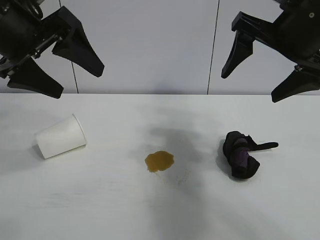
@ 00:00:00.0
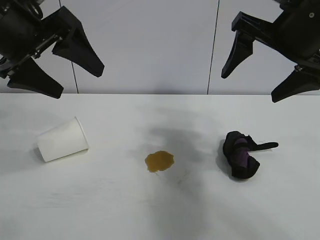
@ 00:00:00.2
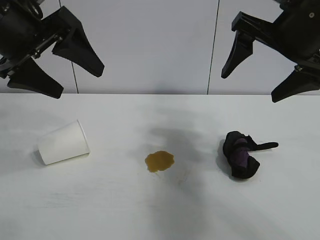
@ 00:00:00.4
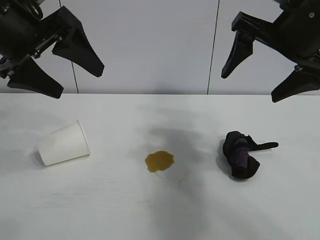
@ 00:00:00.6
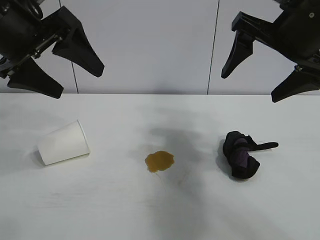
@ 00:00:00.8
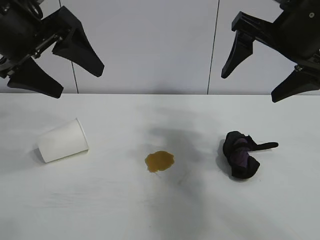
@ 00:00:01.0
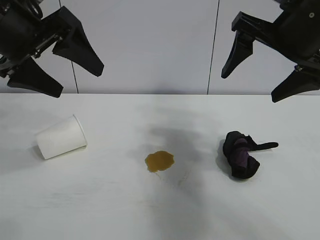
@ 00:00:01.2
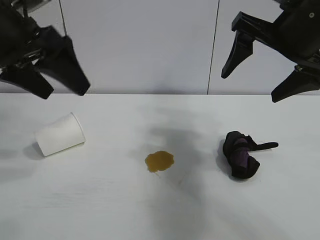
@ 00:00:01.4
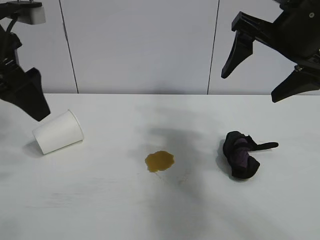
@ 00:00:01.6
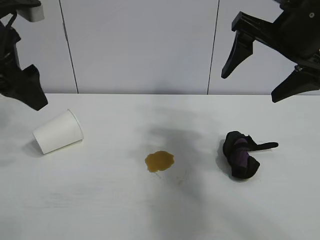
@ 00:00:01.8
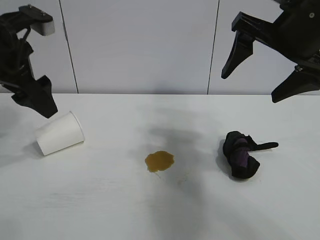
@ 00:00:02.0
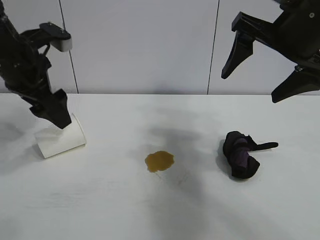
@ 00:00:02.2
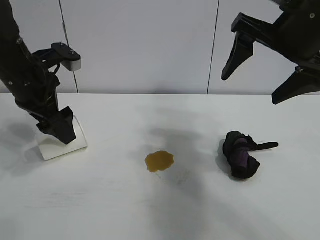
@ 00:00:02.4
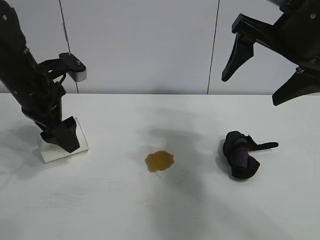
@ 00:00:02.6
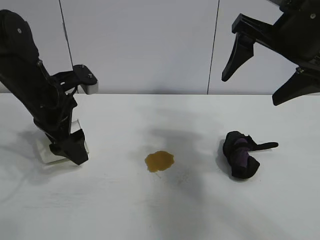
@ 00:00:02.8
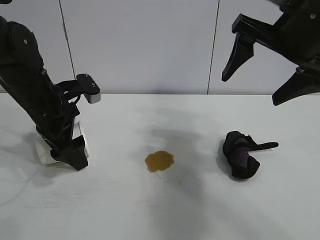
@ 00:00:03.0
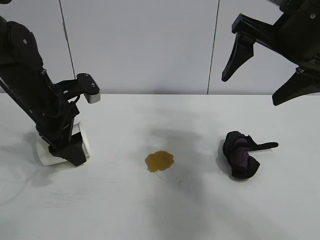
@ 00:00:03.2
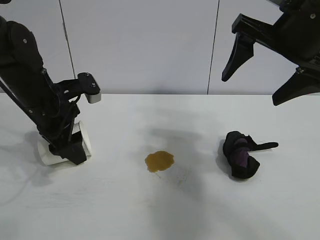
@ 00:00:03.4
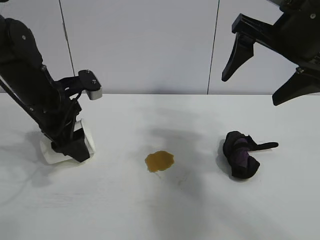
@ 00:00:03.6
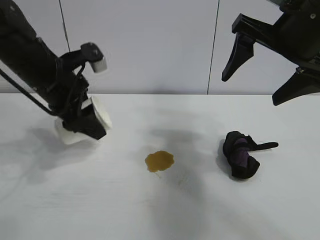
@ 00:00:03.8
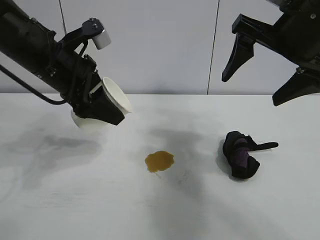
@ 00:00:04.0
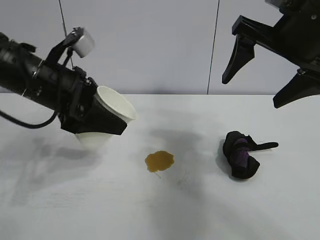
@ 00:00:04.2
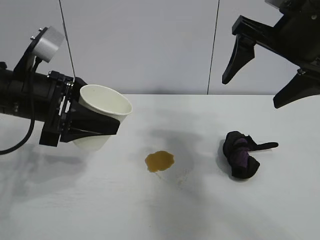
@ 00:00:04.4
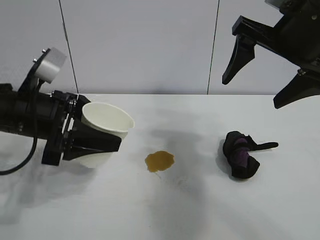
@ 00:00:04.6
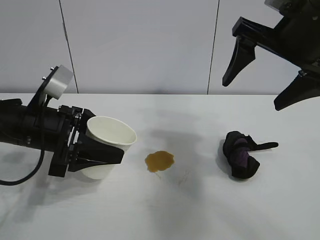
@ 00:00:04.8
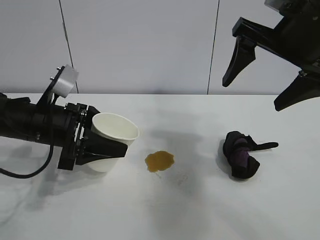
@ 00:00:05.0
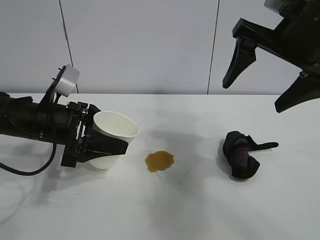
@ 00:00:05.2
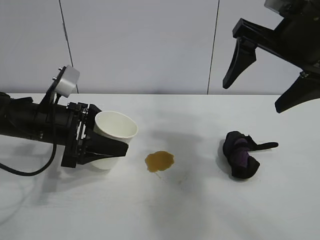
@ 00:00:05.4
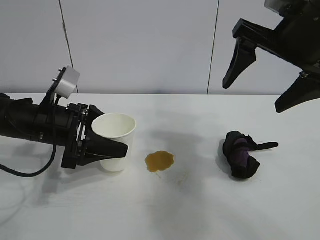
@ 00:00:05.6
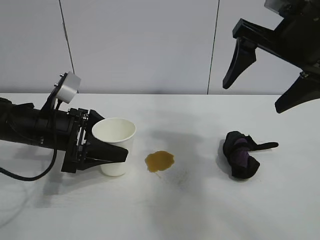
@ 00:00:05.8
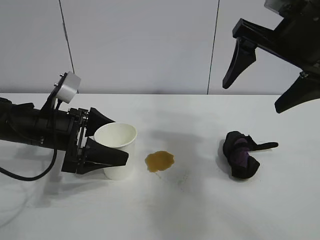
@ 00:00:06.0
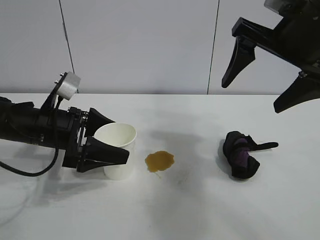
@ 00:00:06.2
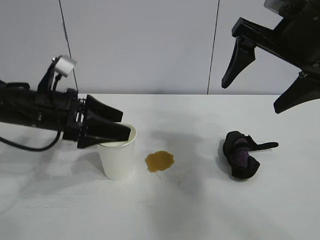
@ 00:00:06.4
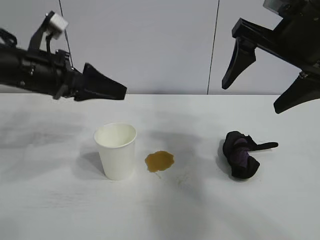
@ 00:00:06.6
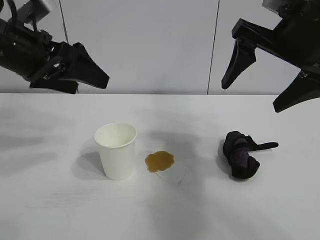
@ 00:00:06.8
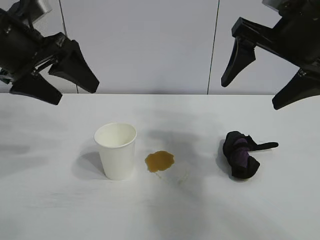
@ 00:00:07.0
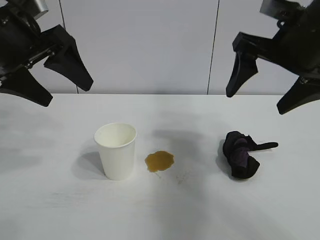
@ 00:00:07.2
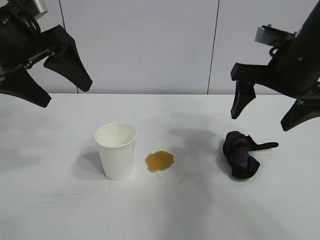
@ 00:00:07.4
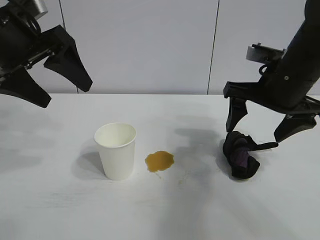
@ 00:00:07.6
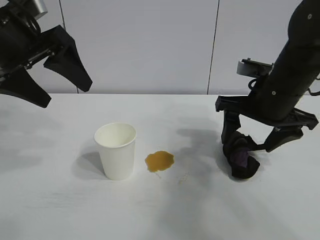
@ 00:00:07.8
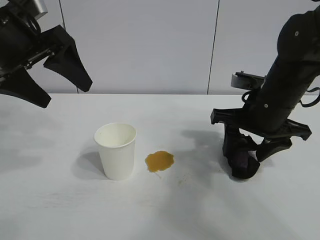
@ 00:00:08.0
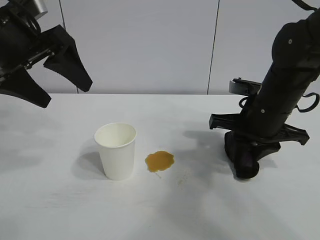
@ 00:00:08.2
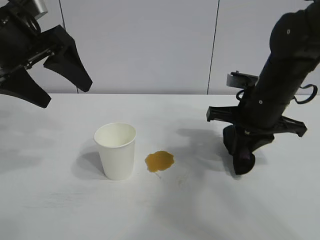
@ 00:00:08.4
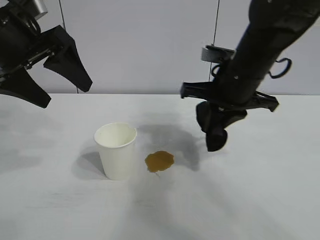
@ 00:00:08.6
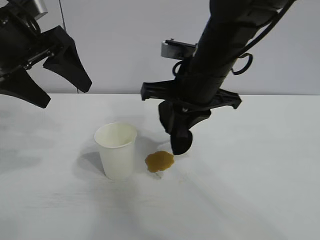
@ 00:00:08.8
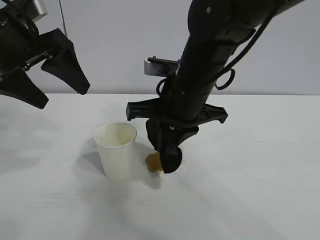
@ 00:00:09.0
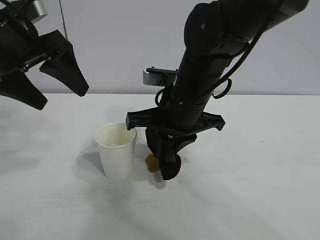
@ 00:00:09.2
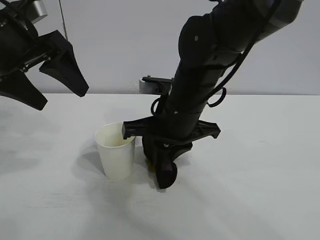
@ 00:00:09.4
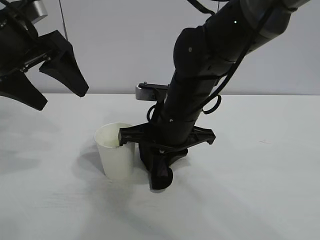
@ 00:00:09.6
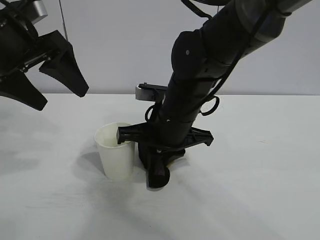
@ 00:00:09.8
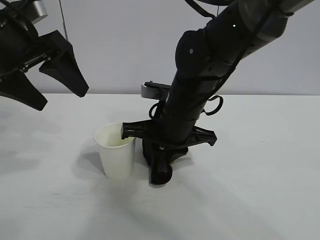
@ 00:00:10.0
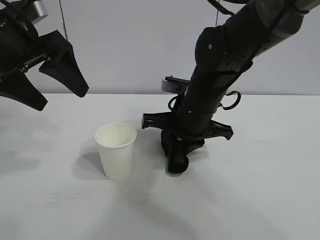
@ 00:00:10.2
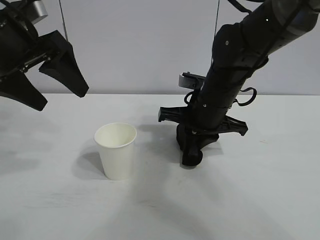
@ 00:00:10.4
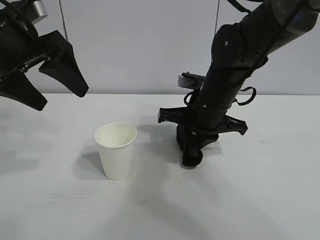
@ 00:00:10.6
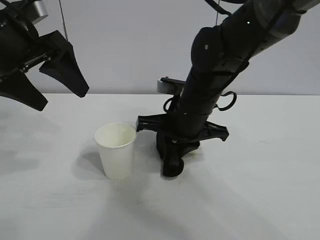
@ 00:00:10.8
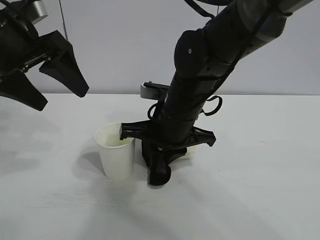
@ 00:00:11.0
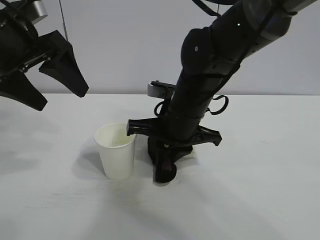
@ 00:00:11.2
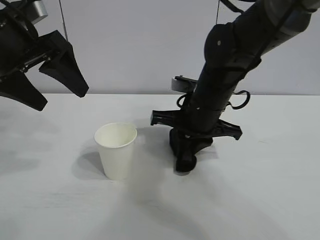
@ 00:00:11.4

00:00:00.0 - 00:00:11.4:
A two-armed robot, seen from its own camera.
Task of the whole recording: the left gripper pick up the fallen cup and place it upright, the right gripper grasp the black rag and wipe the stain on the table, the right gripper put the black rag back in its original position.
Step, 00:00:01.4 - 00:00:03.2: Grasp the paper cup with left gripper.
Step, 00:00:03.4 - 00:00:05.8: Stand the paper cup upright with left gripper.
Step, 00:00:06.2 - 00:00:08.2: Grasp the rag with right gripper.
